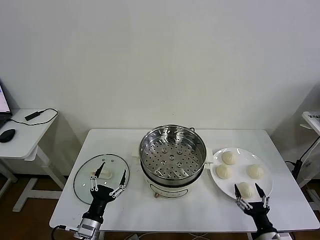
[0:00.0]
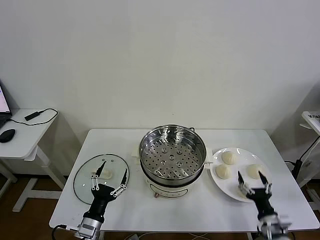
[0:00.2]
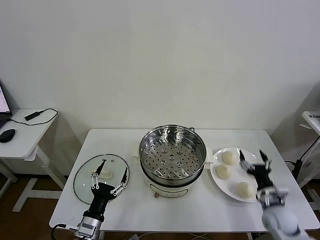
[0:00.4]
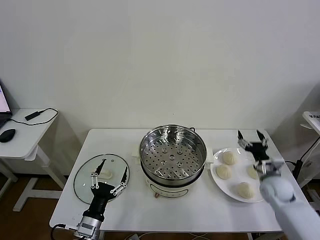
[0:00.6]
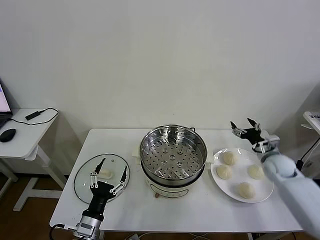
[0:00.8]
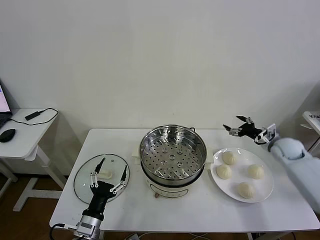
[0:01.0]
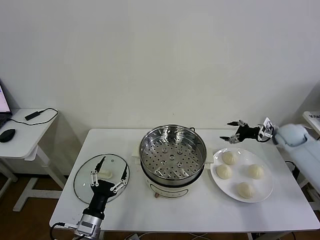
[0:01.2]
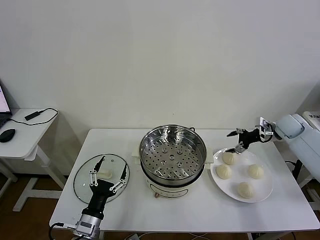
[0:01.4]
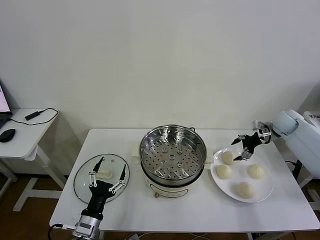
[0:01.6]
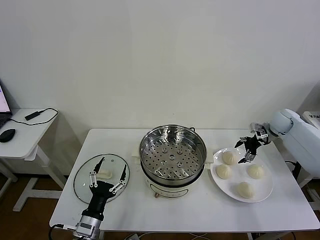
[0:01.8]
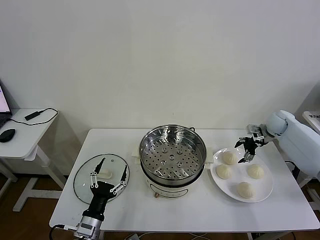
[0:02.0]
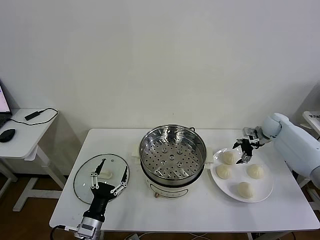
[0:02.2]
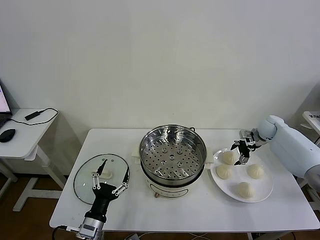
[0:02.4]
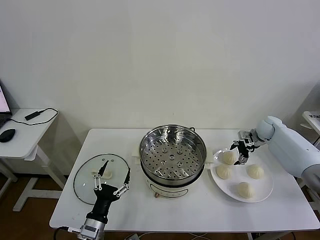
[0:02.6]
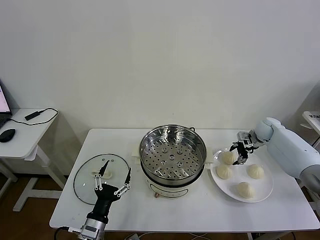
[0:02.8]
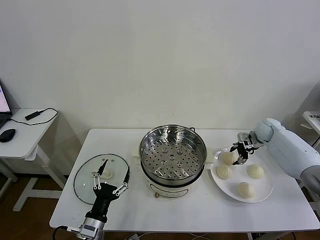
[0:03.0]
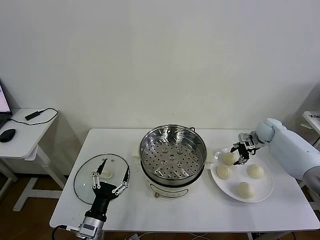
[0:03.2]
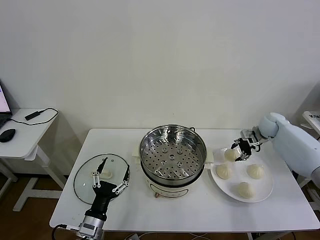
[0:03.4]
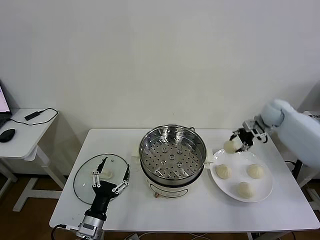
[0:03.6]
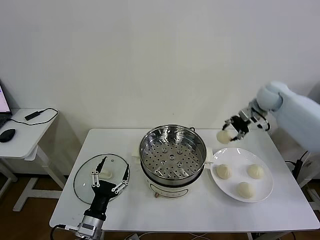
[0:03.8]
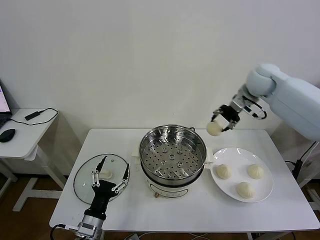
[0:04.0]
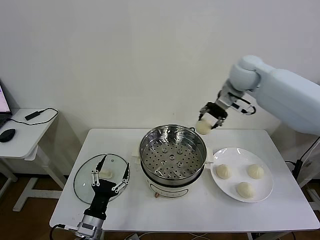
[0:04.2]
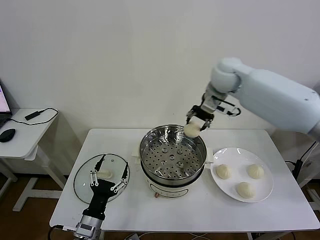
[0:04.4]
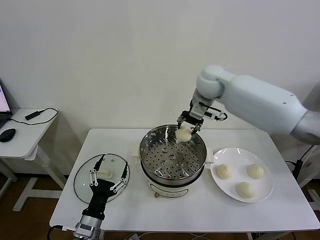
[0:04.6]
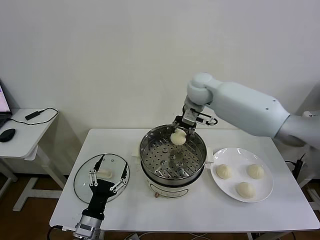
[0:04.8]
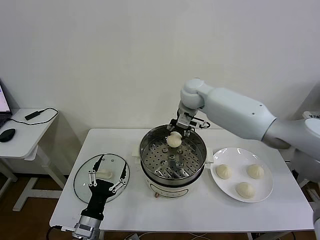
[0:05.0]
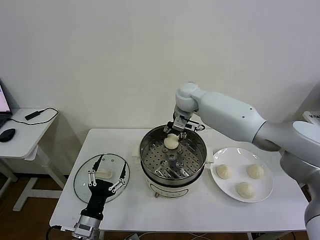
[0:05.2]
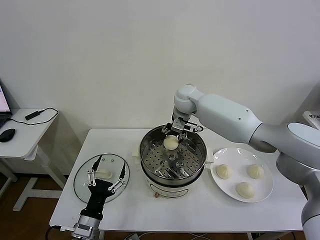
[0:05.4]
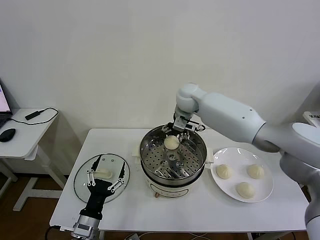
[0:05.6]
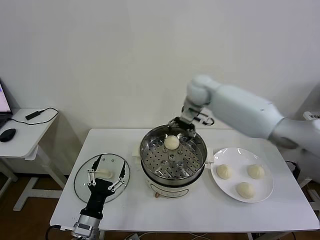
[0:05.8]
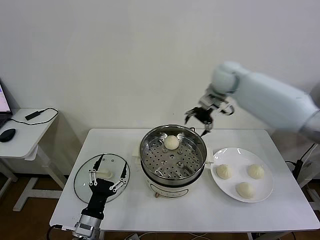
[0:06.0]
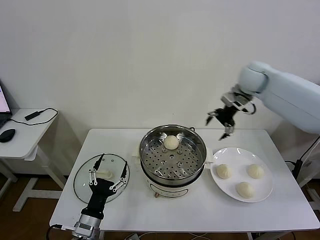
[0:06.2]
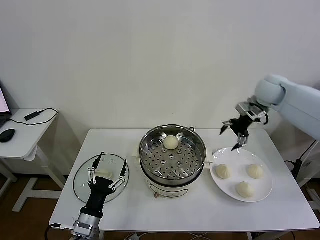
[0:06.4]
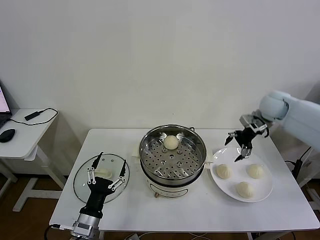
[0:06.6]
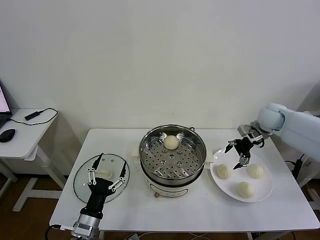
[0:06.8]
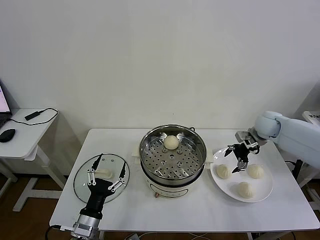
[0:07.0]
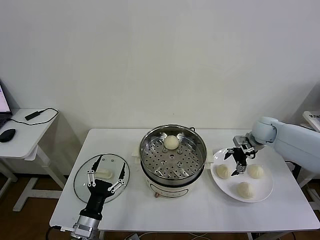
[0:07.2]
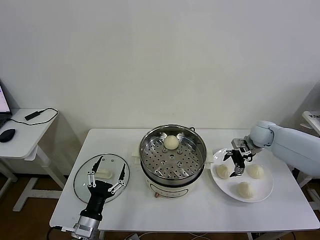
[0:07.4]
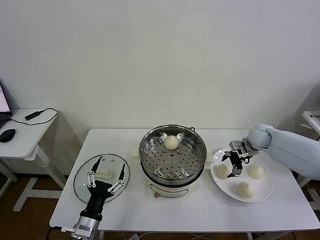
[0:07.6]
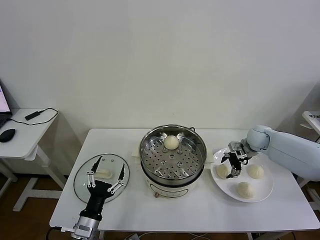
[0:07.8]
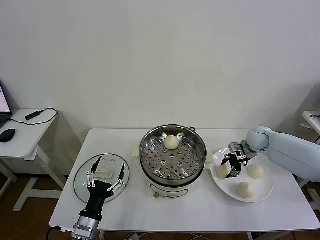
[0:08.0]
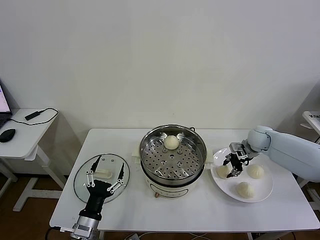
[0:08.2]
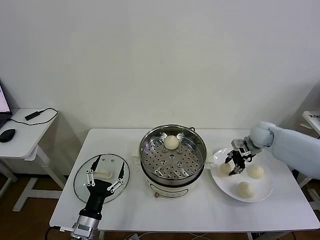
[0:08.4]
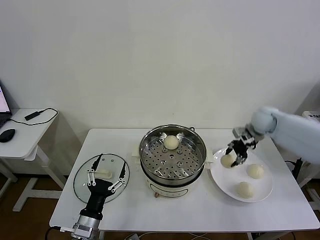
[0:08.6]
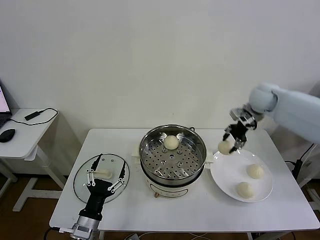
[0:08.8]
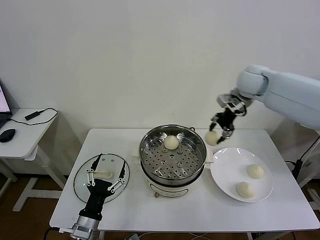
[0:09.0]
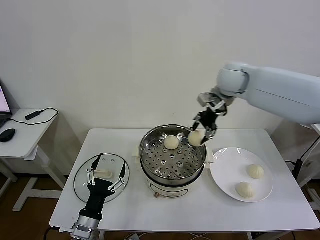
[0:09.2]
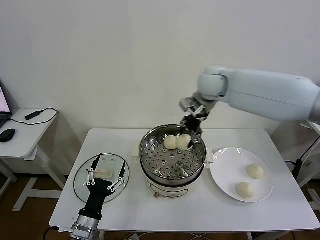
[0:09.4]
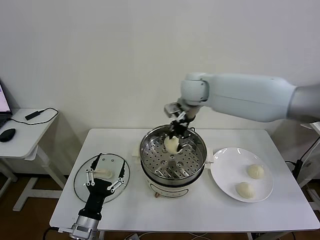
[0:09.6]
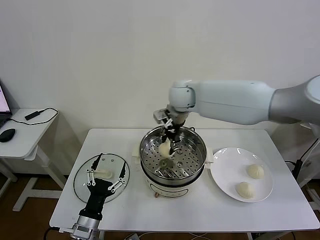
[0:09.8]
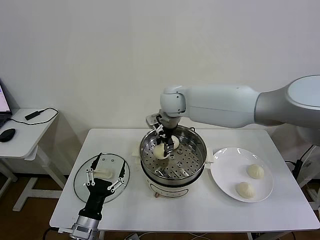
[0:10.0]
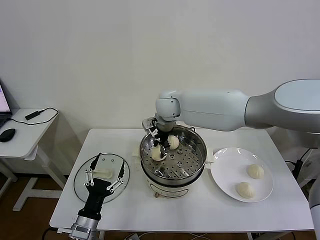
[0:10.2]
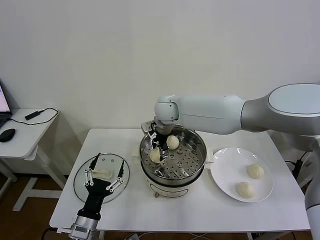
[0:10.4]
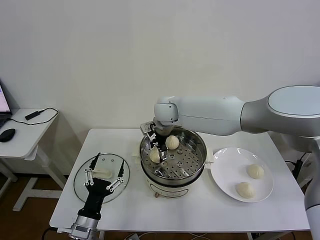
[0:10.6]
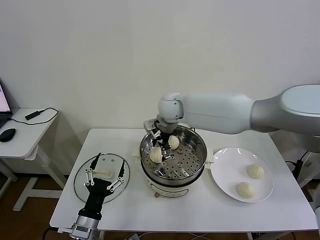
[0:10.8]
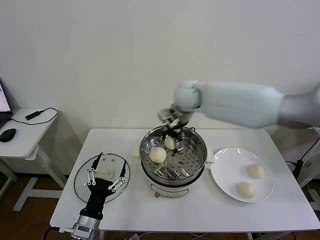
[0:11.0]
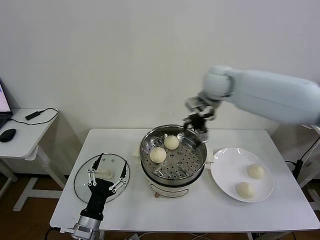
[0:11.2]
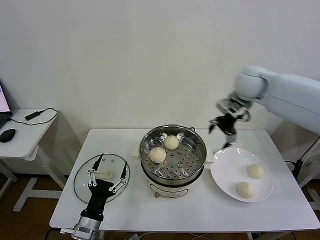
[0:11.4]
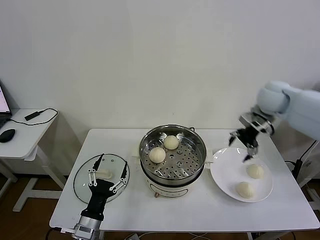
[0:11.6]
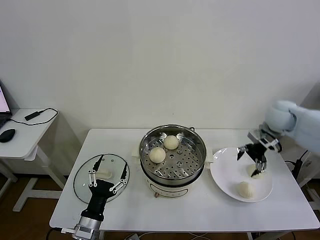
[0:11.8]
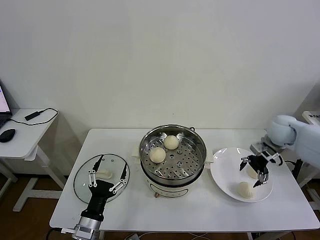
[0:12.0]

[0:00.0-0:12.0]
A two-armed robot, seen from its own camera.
Task of the whole recording: take steamed baozi put them in steamer then cover it.
Step, 0.0 to 3.0 s: Grasp the baozi in the plate with right gripper.
Step, 3.2 to 5.4 s: Place the baozi on the steamer with right gripper.
Step, 5.6 to 8.0 s: Grasp the baozi in the plate with right gripper.
Step, 8.2 to 10.6 s: Place the baozi on the steamer with right gripper.
1.6 to 3.0 s: The right gripper is displaced downward by roughly 5 cm, and closes its fingers.
3.0 to 4.4 s: The right gripper is displaced upward and to the left by about 35 cm.
4.4 to 6.0 s: The right gripper goes to the left and returns, roughly 10 cm each way, and opens its fingers.
6.0 to 7.6 s: The right gripper travels downward and to the right by approximately 30 cm.
7.6 to 9.0 s: The right gripper moves upward and to the left, approximately 25 cm, and closes its fingers.
9.0 to 10.4 s: The right gripper heads to the left, covering approximately 25 cm.
10.4 to 12.0 s: The right gripper travels to the right by approximately 40 cm, and opens its fingers.

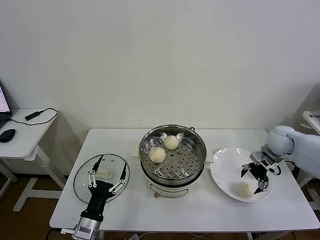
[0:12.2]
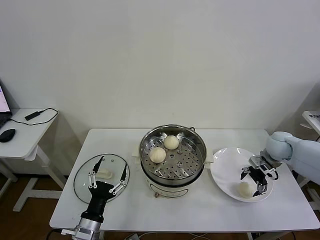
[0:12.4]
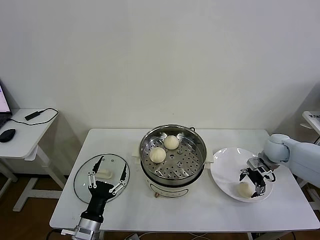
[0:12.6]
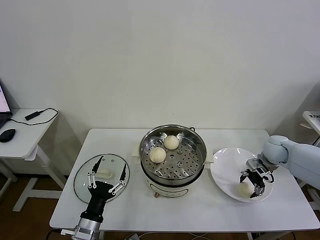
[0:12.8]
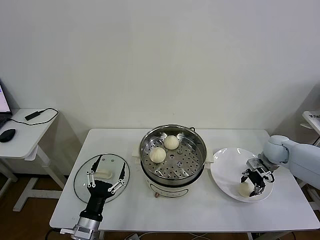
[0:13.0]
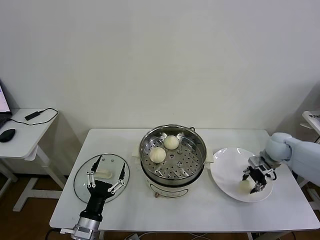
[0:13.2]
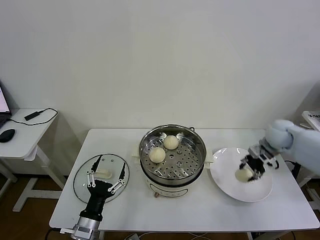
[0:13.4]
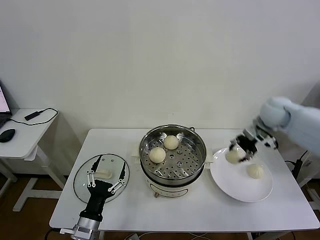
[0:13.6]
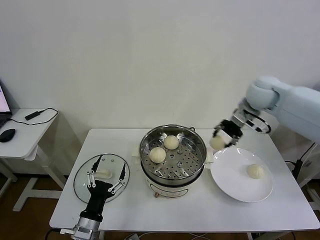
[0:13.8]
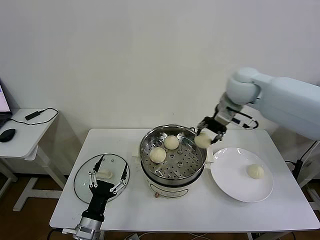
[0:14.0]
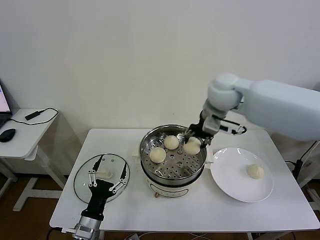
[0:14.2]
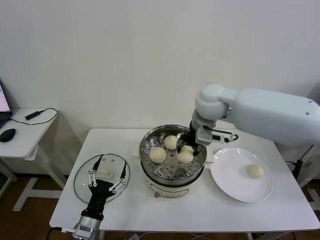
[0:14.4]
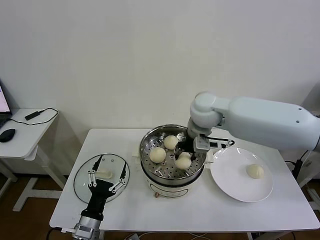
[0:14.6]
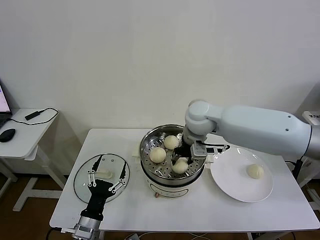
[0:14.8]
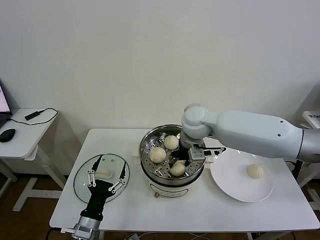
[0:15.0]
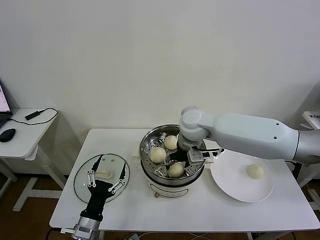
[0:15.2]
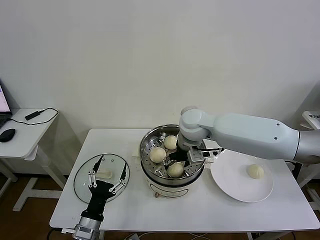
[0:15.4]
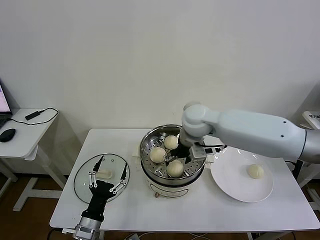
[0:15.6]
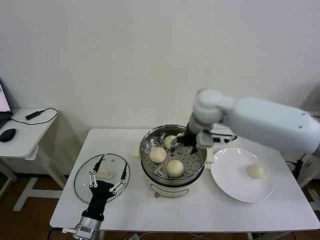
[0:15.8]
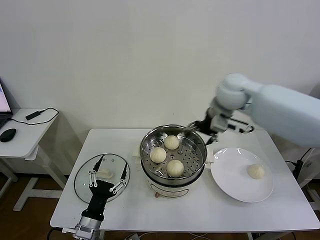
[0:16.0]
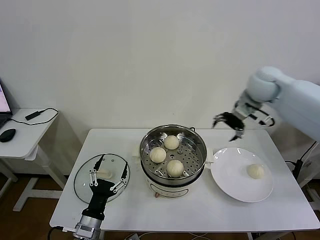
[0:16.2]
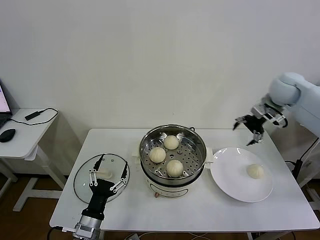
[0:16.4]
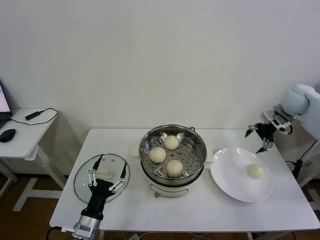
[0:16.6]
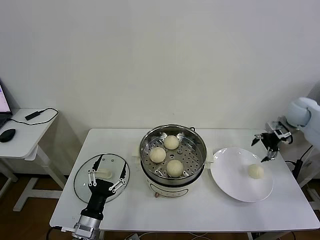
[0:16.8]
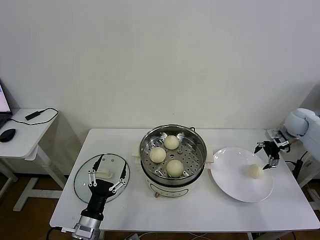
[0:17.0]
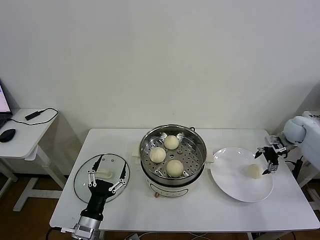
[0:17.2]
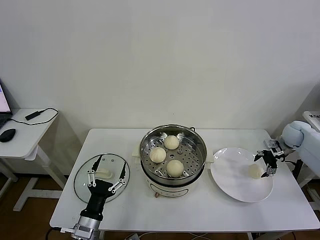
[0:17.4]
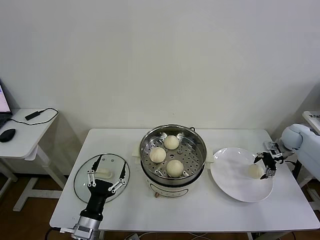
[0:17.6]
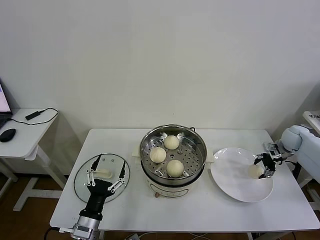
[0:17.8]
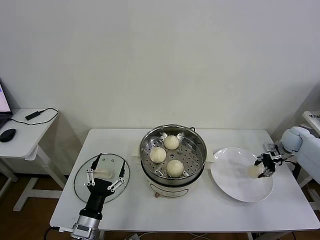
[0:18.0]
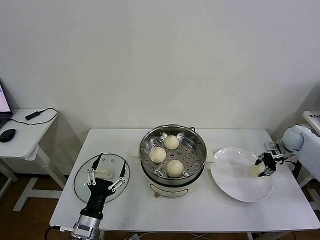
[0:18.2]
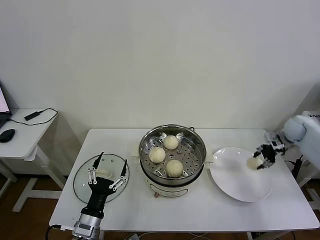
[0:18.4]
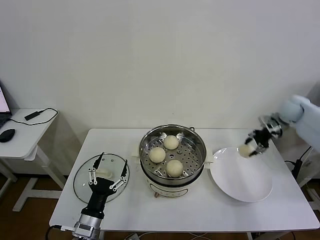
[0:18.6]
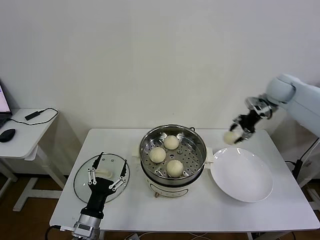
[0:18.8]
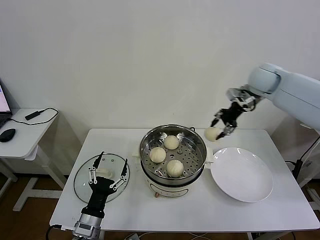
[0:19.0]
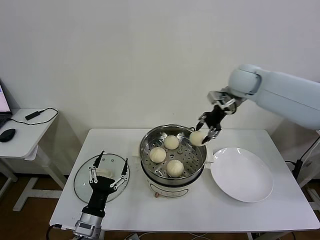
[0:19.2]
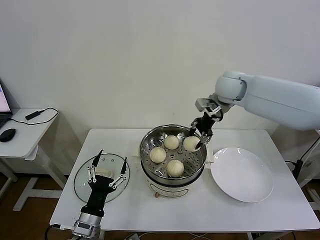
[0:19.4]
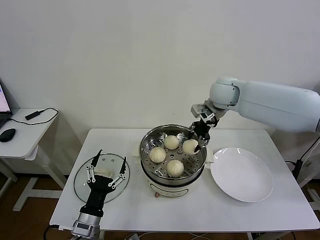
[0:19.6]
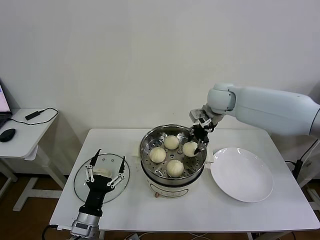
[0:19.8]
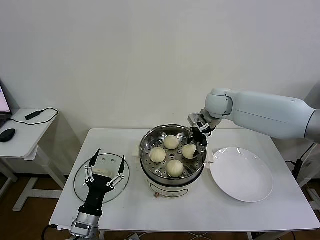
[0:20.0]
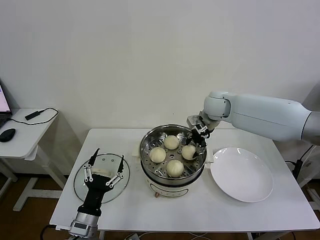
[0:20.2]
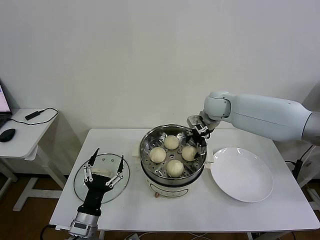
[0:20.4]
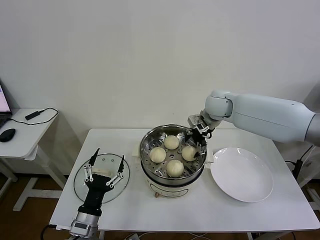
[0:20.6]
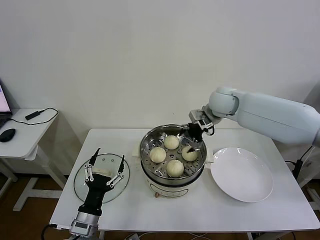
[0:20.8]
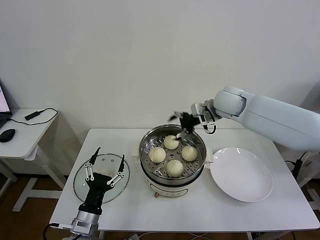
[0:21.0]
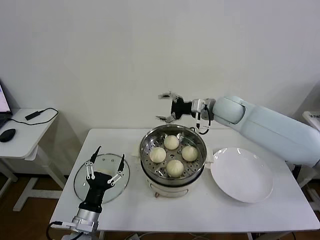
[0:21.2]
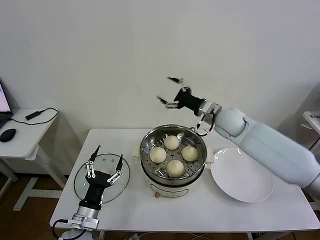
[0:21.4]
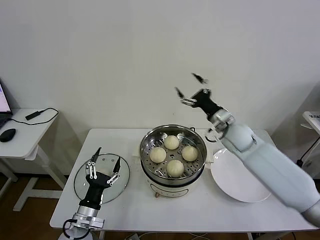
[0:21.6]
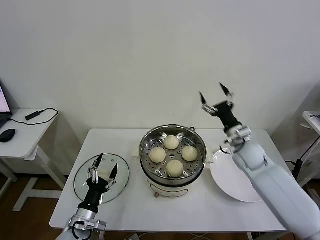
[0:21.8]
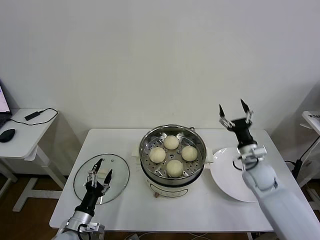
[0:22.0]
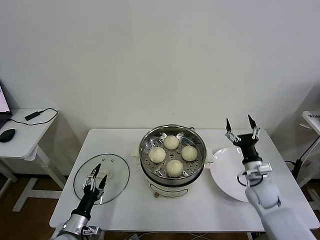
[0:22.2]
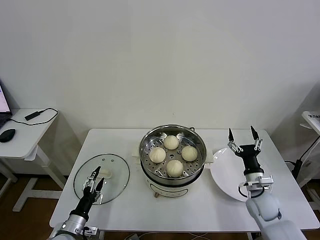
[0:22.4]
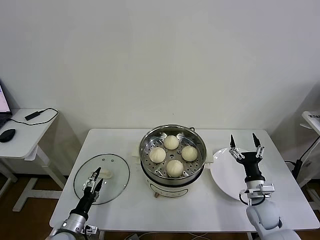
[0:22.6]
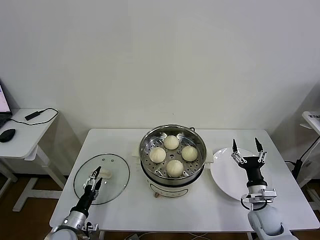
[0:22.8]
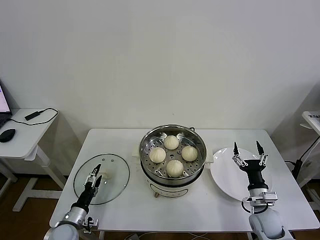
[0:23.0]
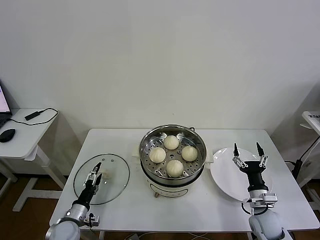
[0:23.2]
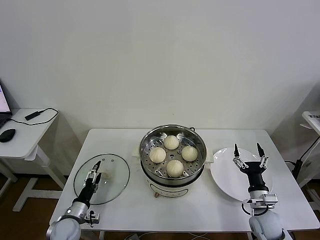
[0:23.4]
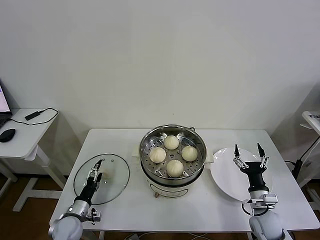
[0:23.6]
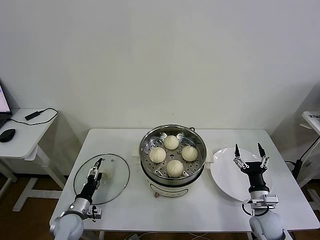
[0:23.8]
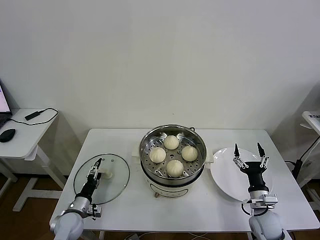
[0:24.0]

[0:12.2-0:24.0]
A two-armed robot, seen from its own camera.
Task of the whole recording: take steamed baozi put them in steamer then cover it.
Step, 13.2 to 15.2 s: Place the baozi on the steamer with right gripper.
Step, 15.4 to 18.0 s: Grasp the baozi in the plate with right gripper.
Step, 18.2 to 20.4 s: Place the baozi on the steamer with right gripper.
12.2 to 13.6 s: The right gripper goes roughly 10 cm upward, and closes up.
13.6 to 15.2 s: The right gripper goes some 30 cm to the left, and opens.
15.2 to 16.6 s: The right gripper moves to the right, approximately 35 cm.
16.6 to 18.2 s: The right gripper moves downward and to the right, some 20 cm, and closes its fingers.
18.2 to 19.6 s: The right gripper is displaced to the left and upward by approximately 40 cm.
19.6 to 21.0 s: The right gripper opens up.
21.0 to 22.6 s: The right gripper moves downward, backward and to the right, roughly 40 cm, while the left gripper goes some 15 cm downward and to the left.
22.6 to 24.0 s: The left gripper heads forward, covering some 5 cm.
